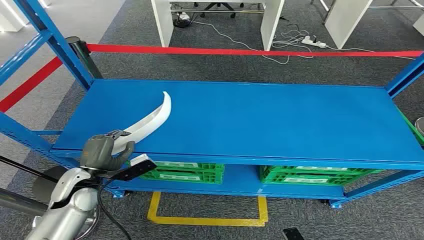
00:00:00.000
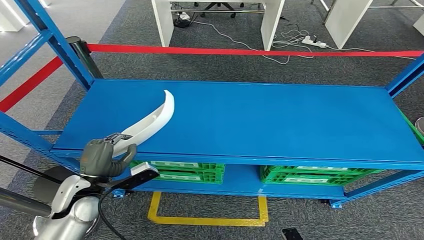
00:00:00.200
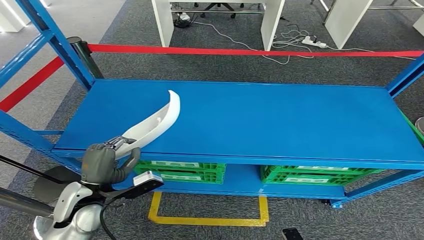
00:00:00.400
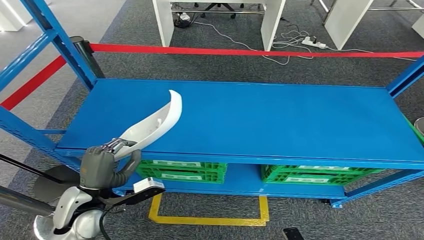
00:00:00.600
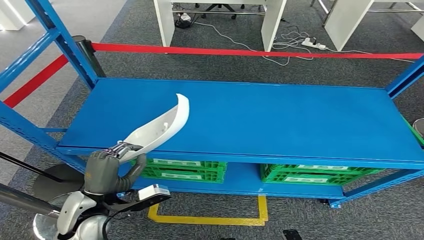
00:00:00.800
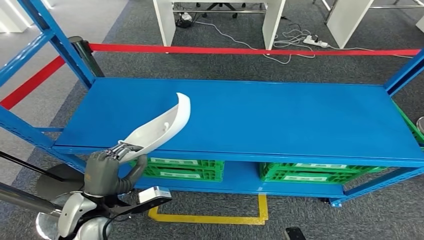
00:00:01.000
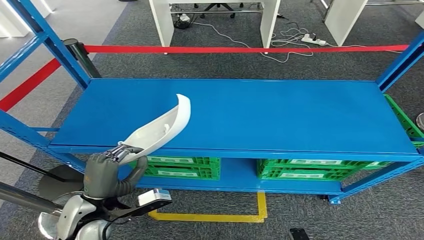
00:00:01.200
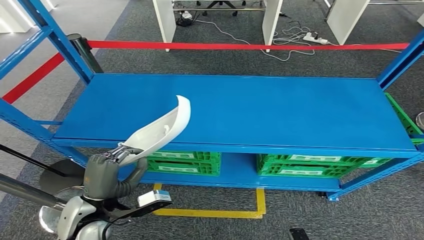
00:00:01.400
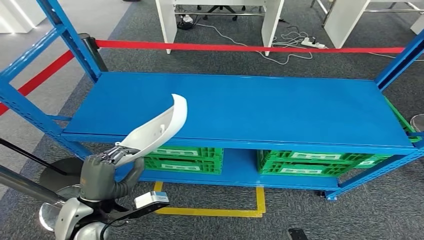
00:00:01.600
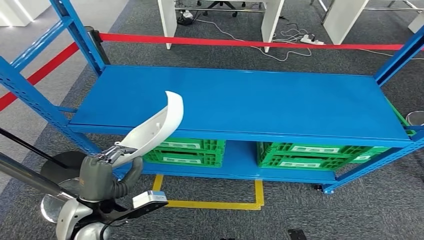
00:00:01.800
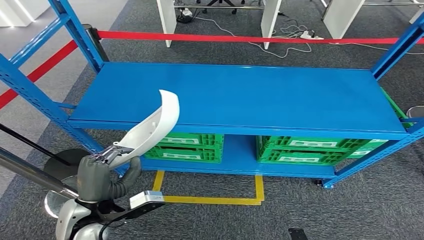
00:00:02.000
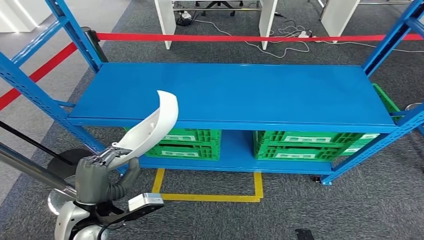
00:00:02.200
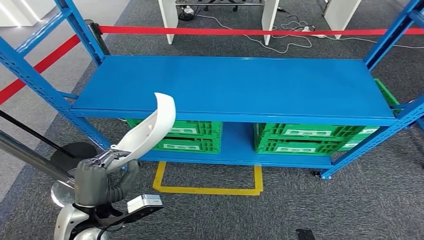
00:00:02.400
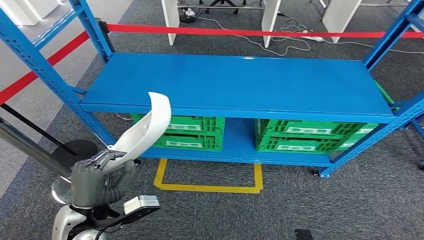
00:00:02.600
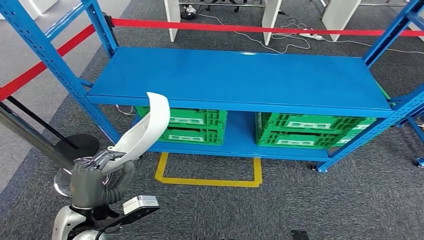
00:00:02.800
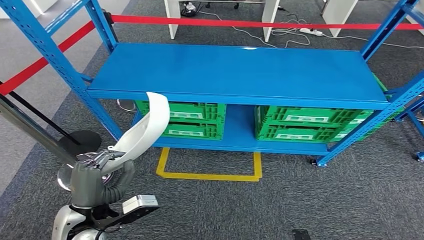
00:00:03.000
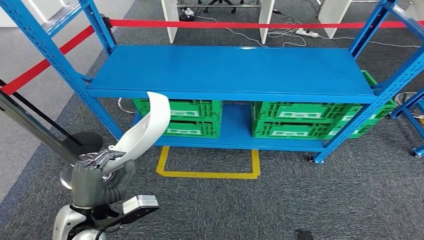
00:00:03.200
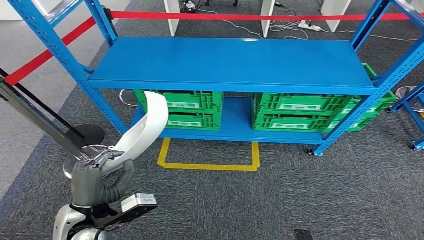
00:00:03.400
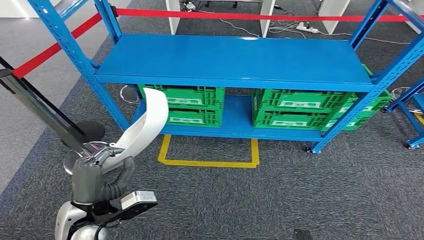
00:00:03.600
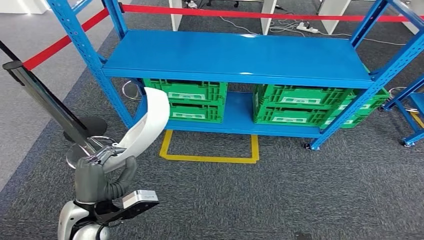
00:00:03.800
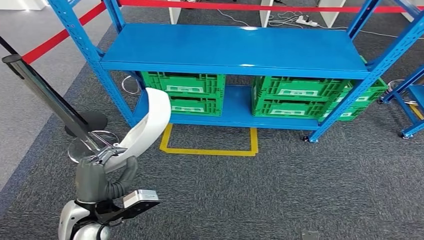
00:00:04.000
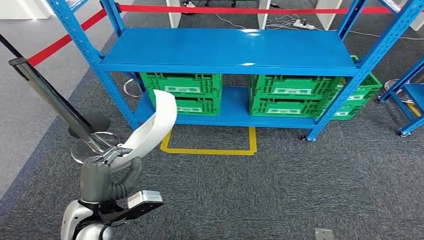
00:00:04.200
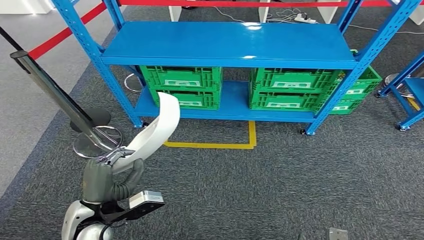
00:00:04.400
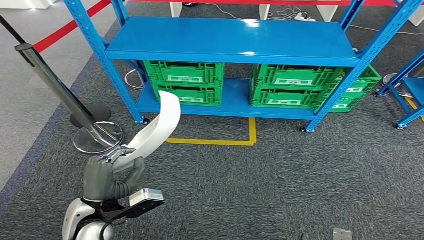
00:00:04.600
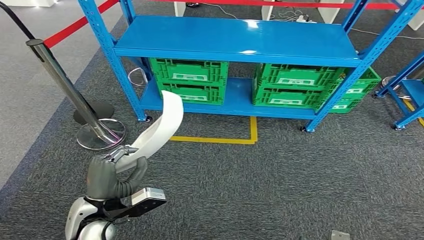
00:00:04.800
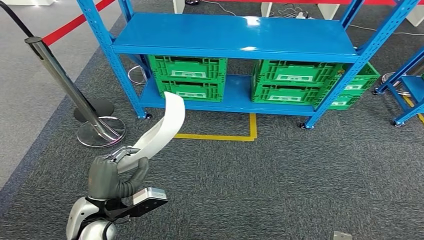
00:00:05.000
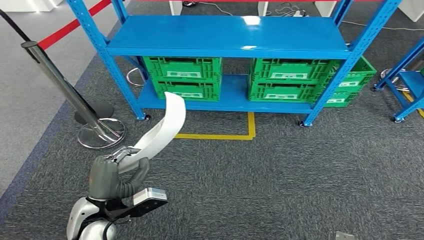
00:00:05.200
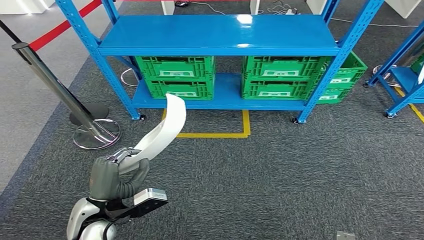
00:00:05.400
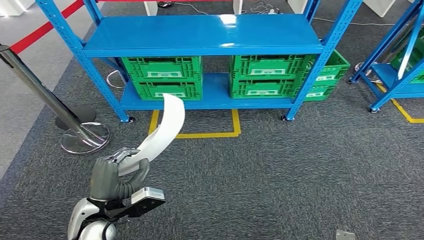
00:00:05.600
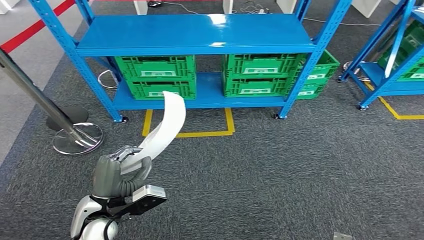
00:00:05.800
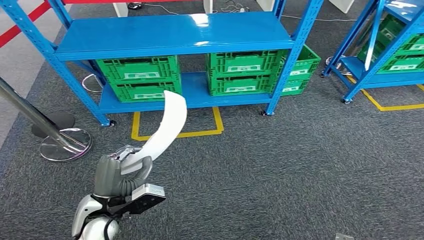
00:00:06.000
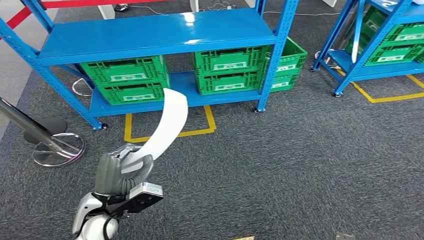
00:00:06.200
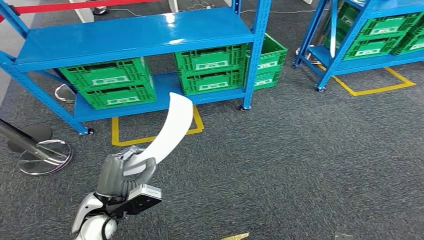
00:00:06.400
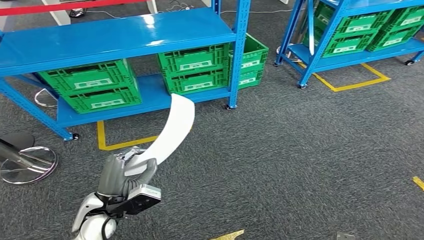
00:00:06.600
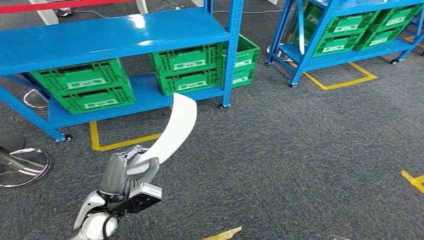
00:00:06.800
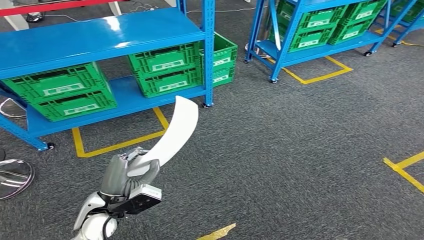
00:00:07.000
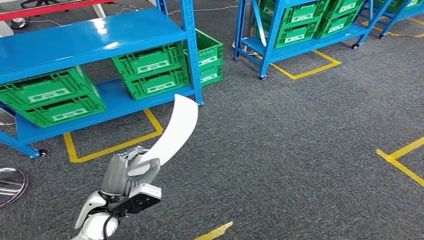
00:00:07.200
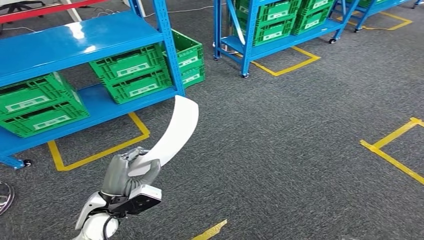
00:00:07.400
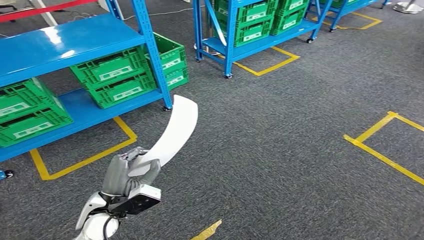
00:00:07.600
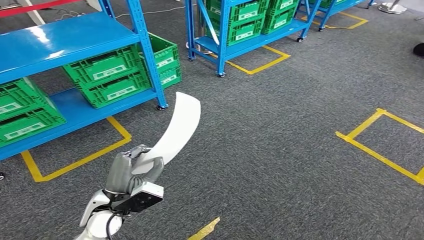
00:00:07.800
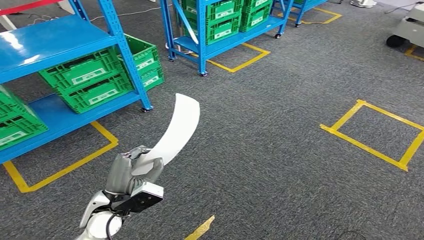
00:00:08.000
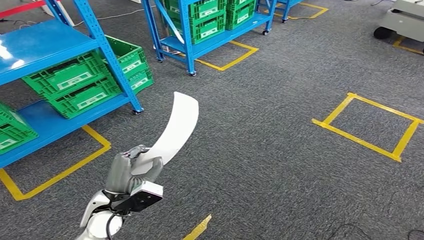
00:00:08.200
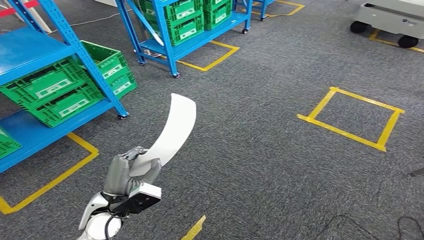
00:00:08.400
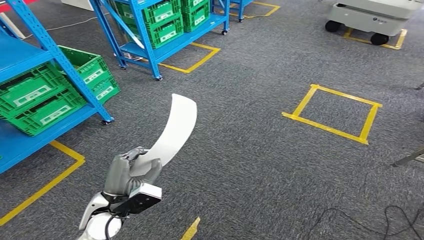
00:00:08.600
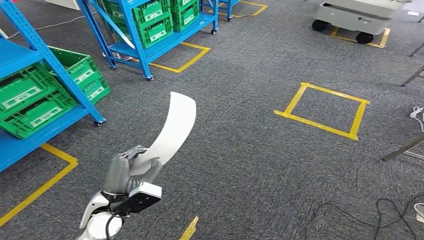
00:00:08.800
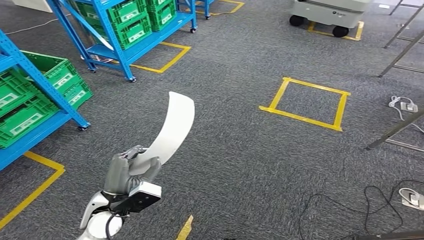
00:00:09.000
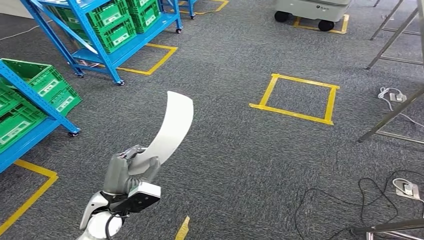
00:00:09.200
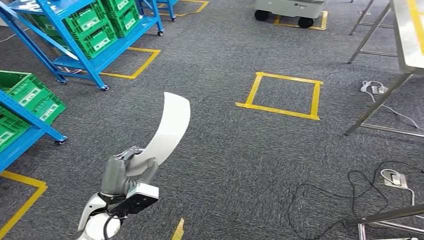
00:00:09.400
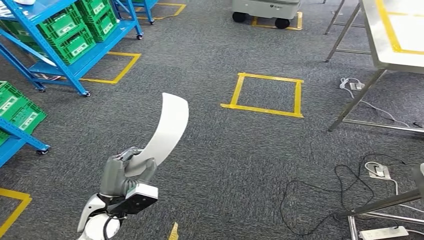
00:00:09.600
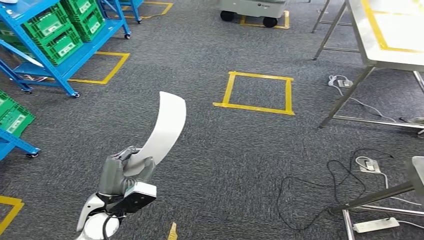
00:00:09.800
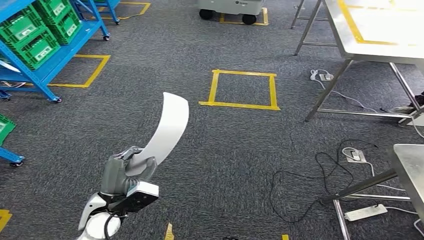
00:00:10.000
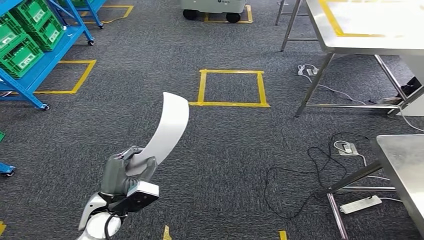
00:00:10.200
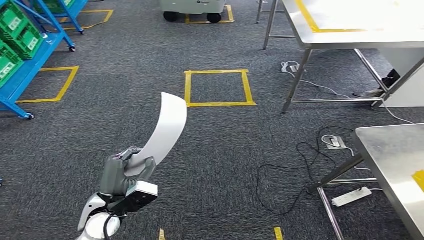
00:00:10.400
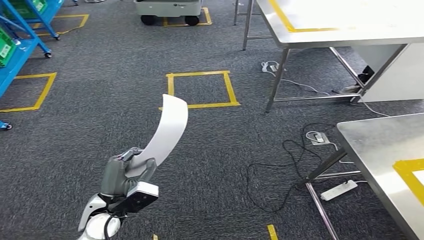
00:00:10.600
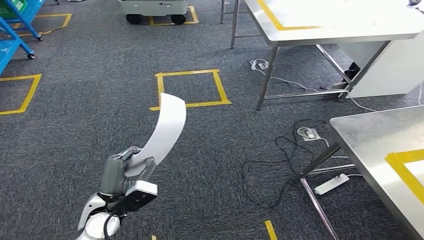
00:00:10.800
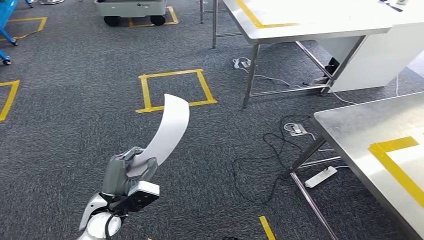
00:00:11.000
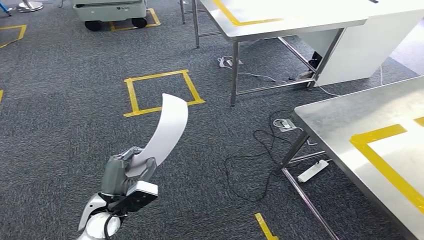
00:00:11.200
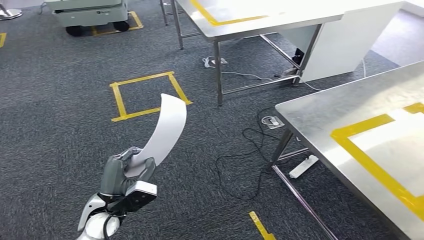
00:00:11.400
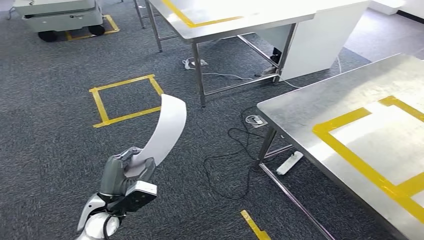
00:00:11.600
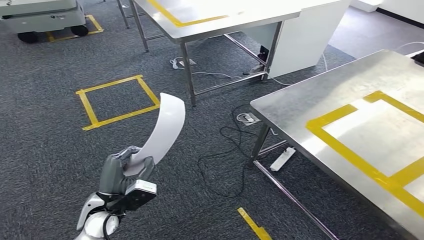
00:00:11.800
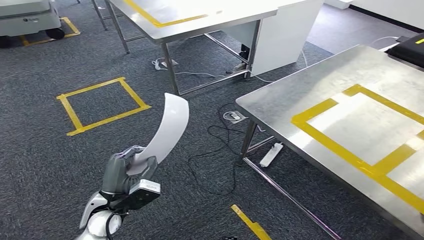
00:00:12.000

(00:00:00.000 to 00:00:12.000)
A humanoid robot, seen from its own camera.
Step, 00:00:00.000 - 00:00:02.400: Take small components from the rack.

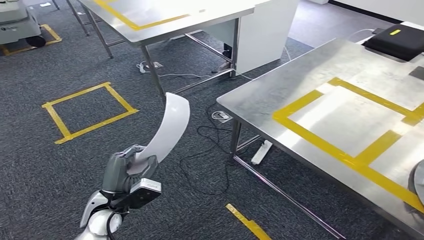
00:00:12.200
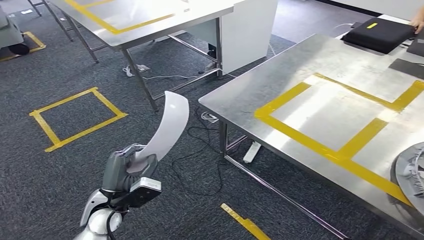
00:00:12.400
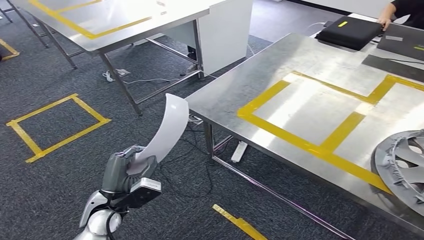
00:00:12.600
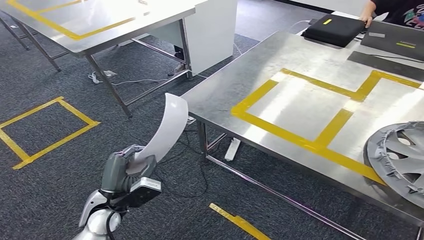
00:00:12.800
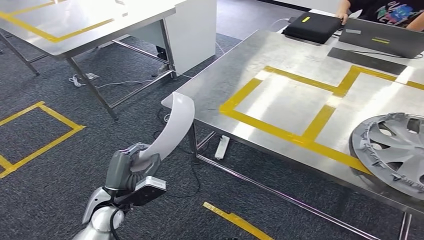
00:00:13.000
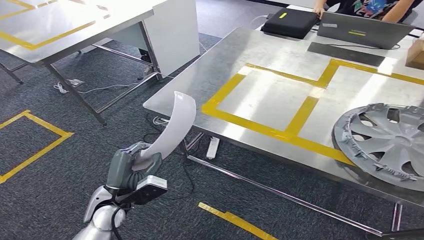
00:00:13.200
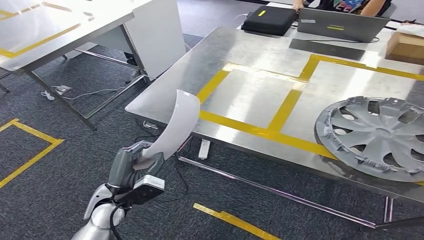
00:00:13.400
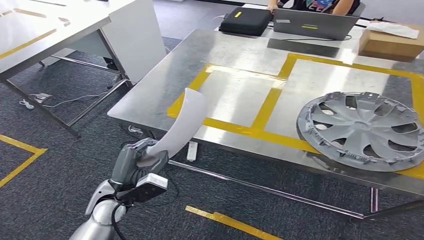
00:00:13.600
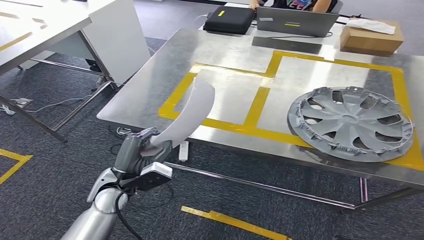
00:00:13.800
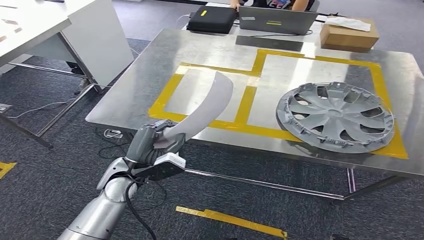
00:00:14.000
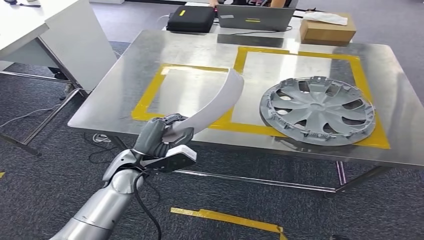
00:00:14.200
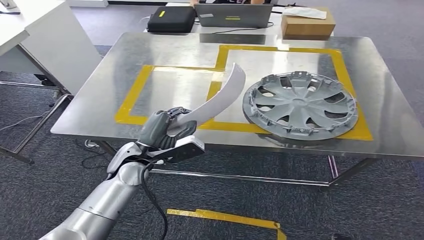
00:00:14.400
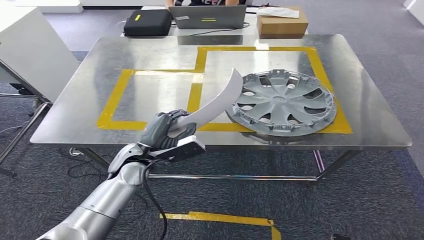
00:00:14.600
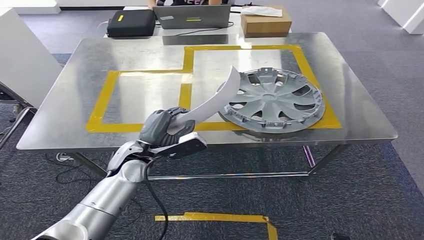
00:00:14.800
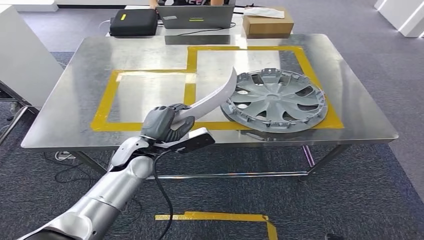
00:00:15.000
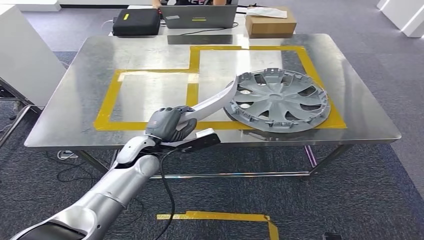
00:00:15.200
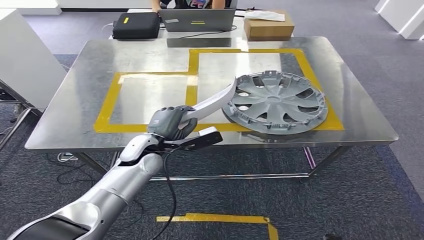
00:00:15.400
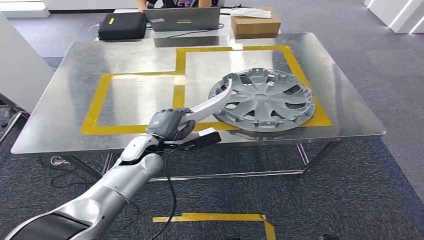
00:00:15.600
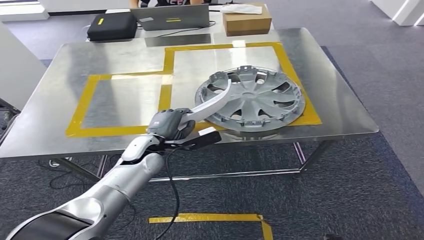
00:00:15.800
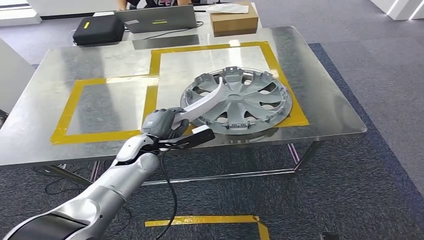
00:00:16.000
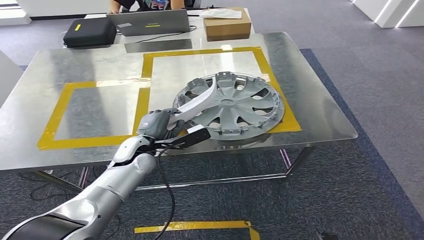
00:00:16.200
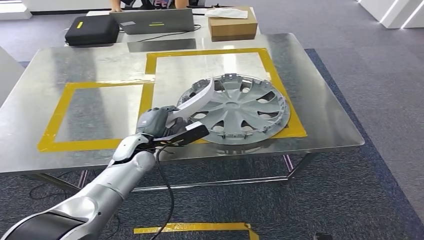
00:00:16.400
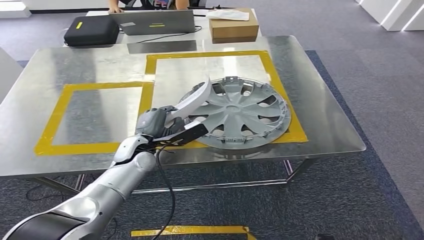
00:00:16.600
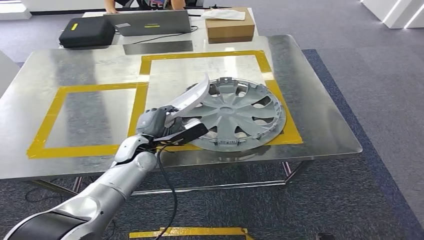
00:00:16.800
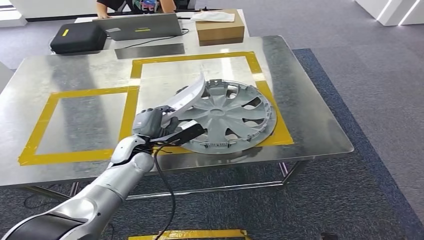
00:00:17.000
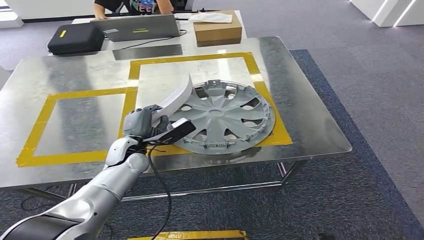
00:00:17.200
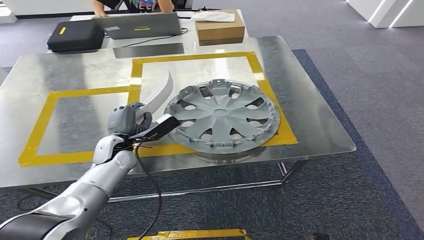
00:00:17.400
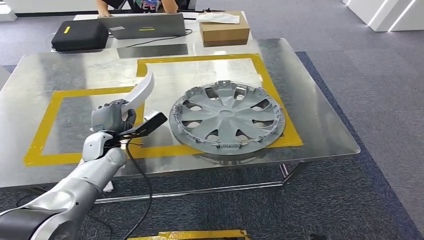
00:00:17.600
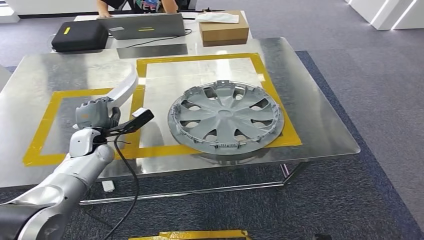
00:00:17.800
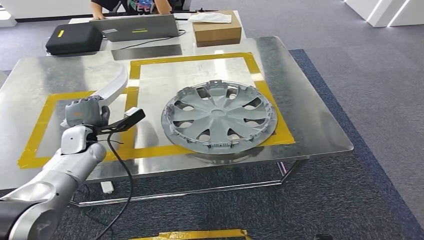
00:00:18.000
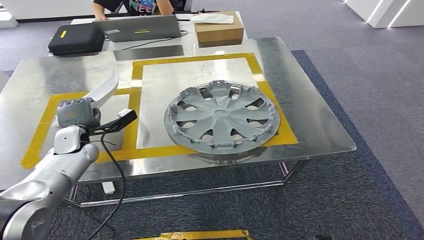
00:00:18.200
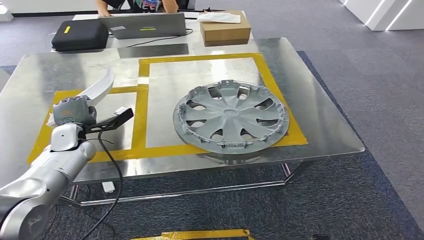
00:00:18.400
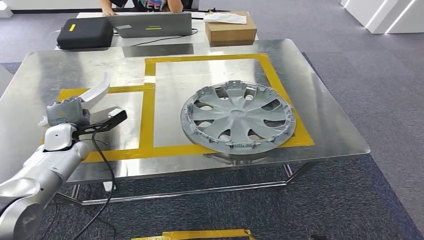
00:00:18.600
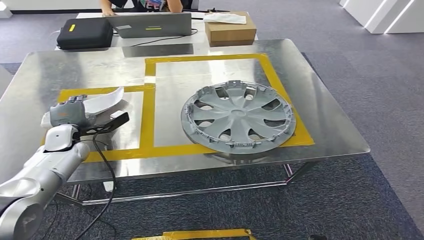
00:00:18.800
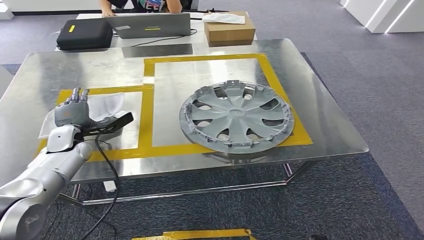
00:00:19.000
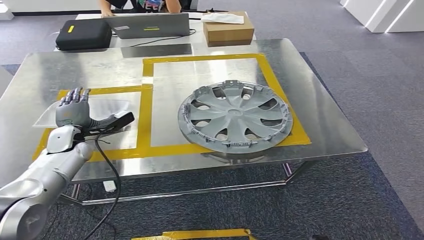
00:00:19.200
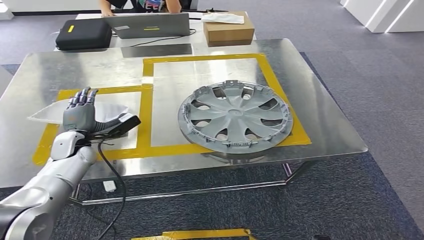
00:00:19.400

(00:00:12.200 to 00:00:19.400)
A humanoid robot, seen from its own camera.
Step, 00:00:12.200 - 00:00:14.800: Move the small parts to the workbench.
